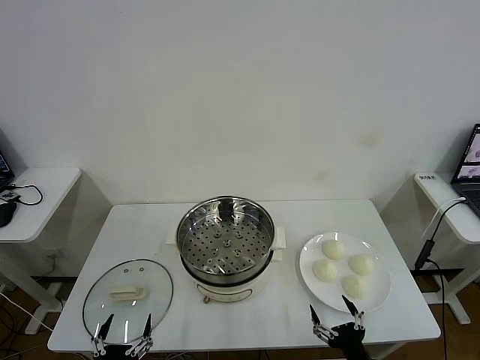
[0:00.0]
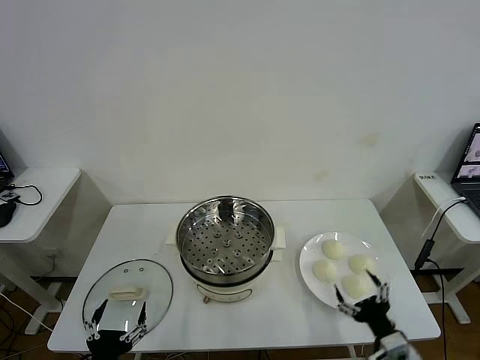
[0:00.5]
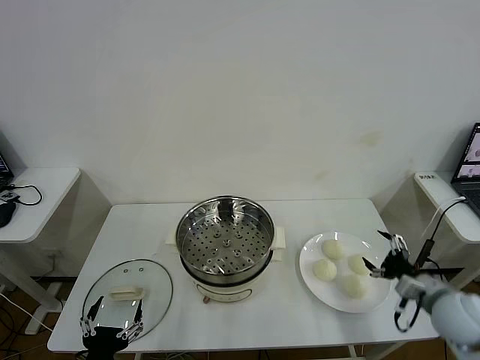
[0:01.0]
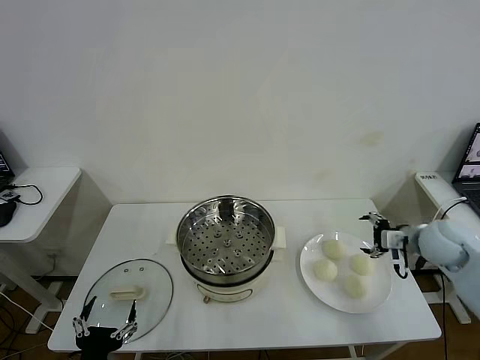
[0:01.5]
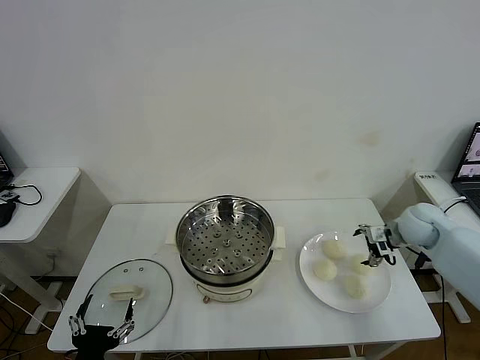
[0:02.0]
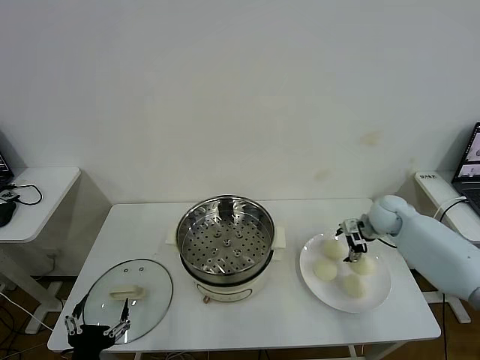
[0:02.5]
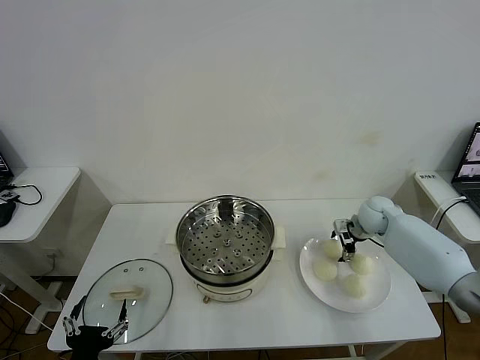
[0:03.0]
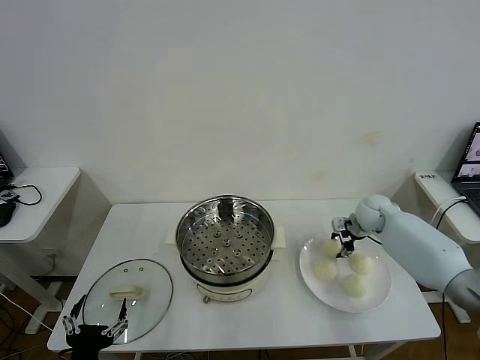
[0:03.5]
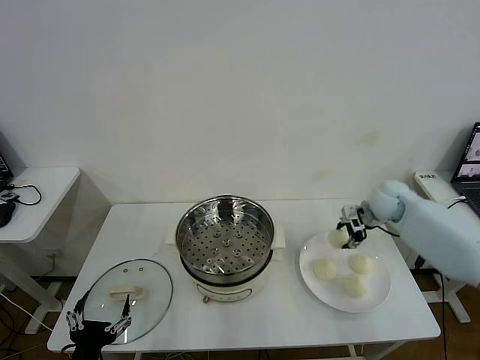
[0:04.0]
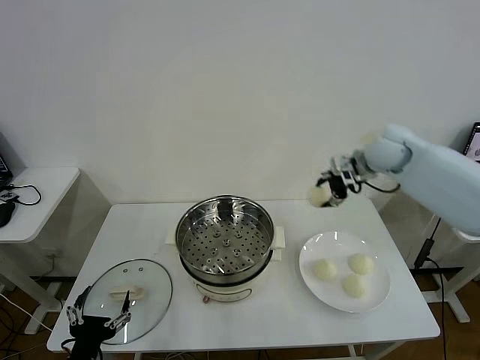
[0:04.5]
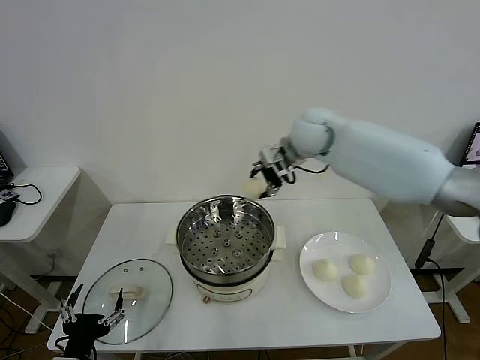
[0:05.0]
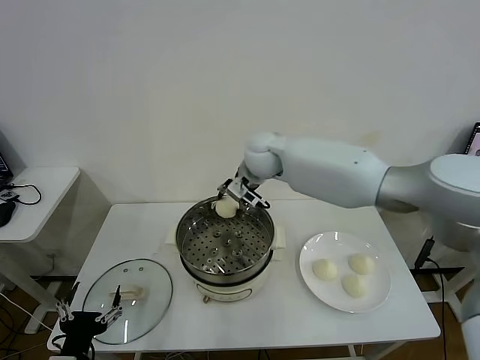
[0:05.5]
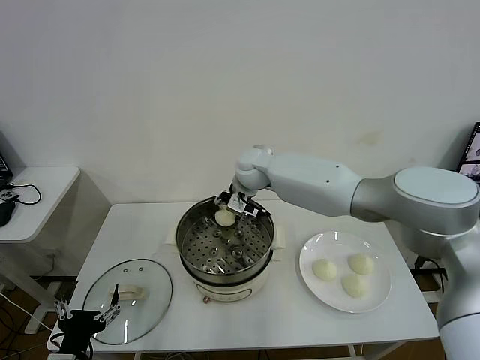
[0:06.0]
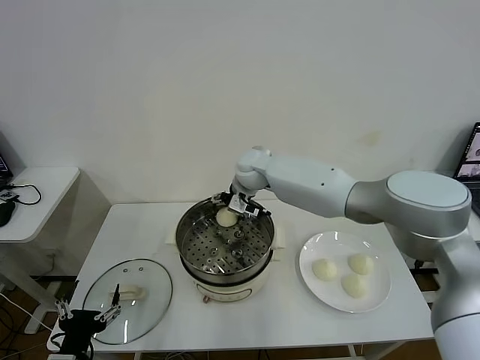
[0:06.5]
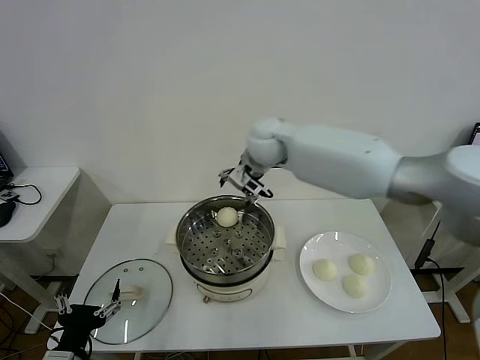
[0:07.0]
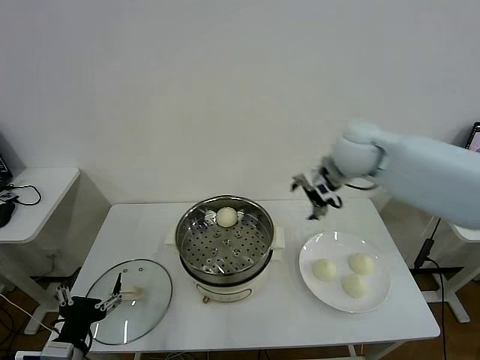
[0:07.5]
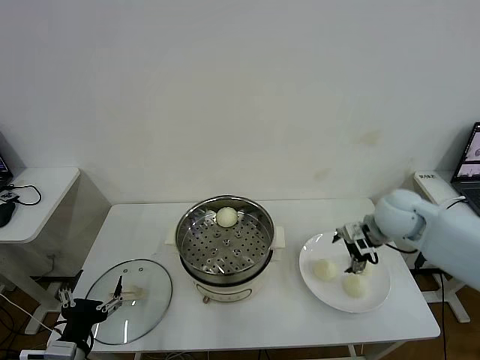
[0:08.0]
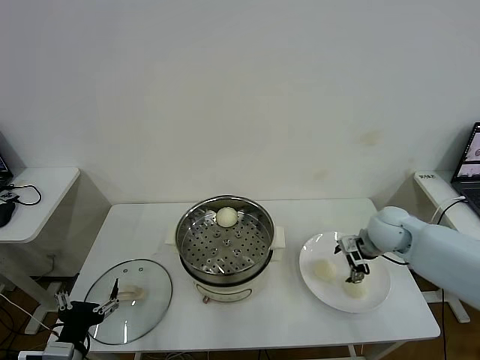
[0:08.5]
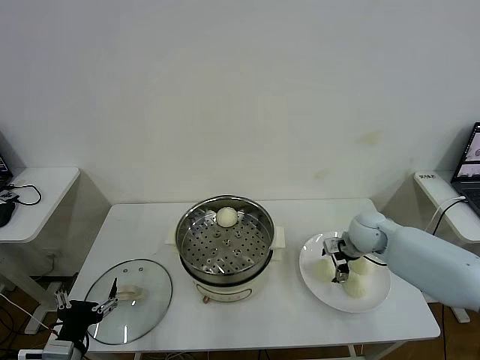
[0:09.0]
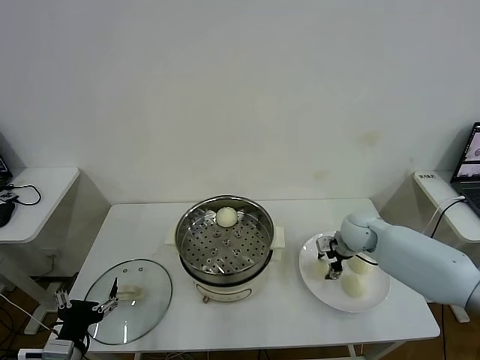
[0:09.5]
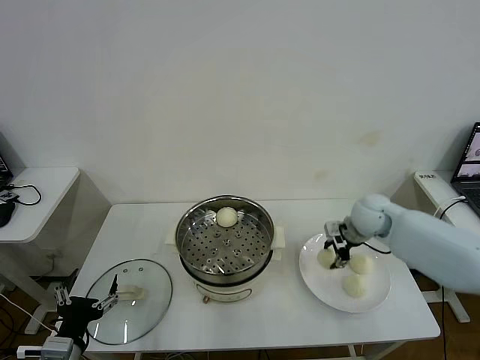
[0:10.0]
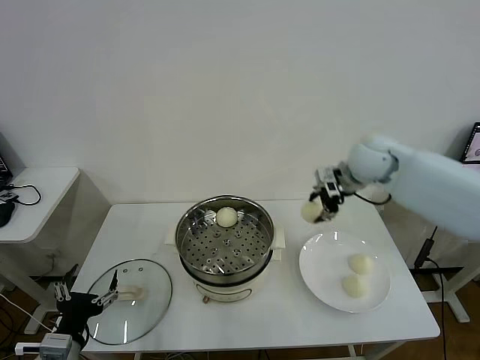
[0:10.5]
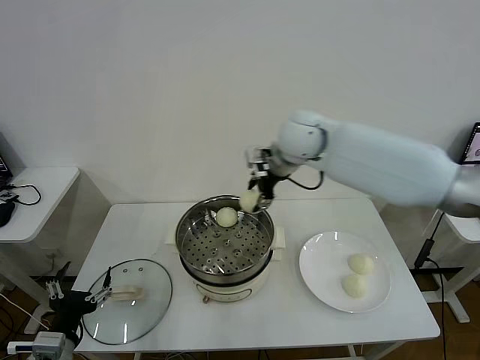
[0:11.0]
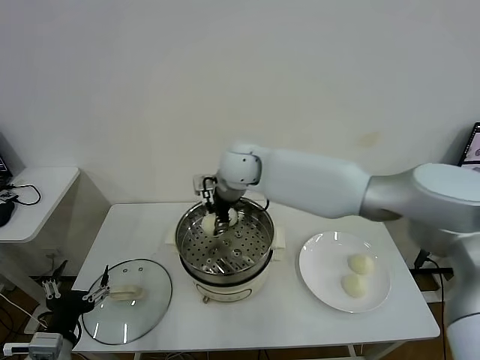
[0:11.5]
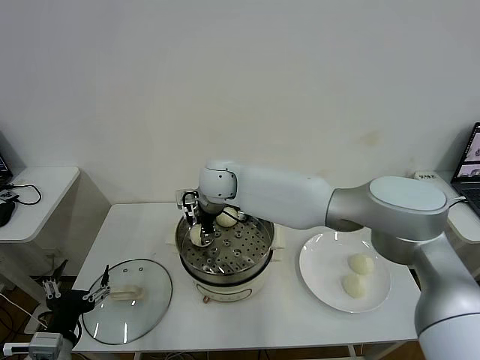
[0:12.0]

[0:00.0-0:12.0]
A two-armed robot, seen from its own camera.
Task of the whole recording: take steamed baozi put them in steamer then cover it.
Step, 0.0 to 3.0 s: Grasp the baozi in the plate with right gripper.
Step, 3.5 to 6.5 s: Place the baozi on the steamer with right gripper.
Step, 7.0 to 9.5 s: Grasp the baozi in the plate with right gripper.
2.0 to 4.0 s: The right gripper moves forward, some 5 cm, reaches roughly 5 cm downward, then returns, and closes up.
4.0 to 6.0 s: The right gripper moves to the left, roughly 35 cm.
6.0 to 8.0 s: The right gripper moves to the right and backward, approximately 35 cm, and opens its fingers.
8.0 to 10.0 s: The right gripper closes.
10.0 to 12.0 s: The right gripper shifts about 35 cm to the left.

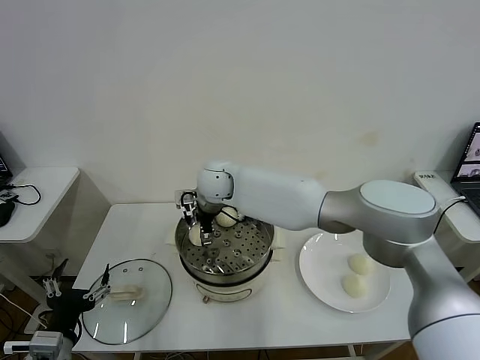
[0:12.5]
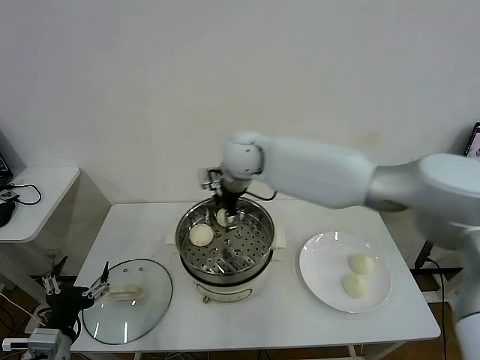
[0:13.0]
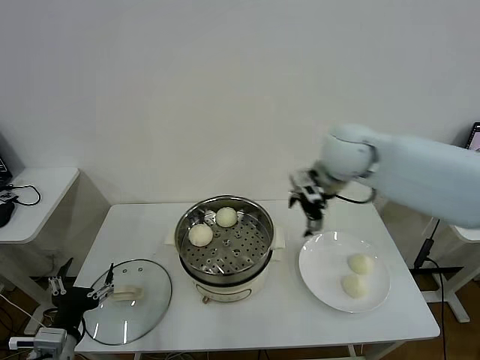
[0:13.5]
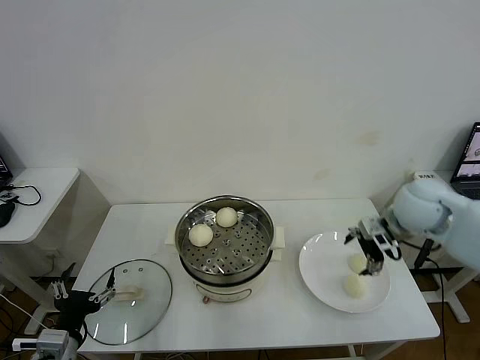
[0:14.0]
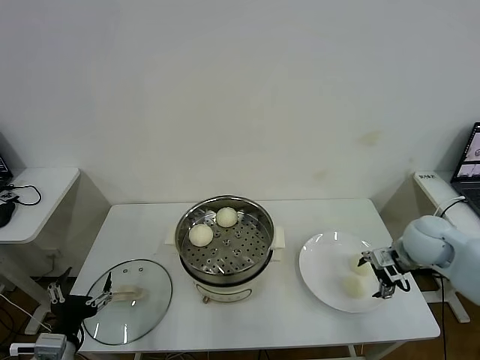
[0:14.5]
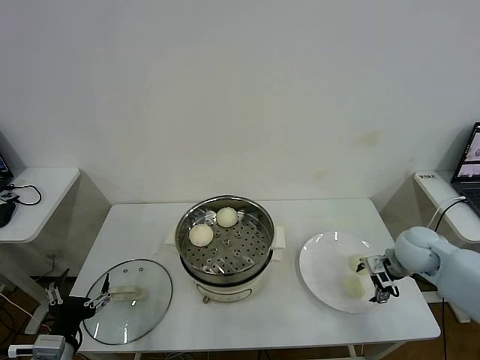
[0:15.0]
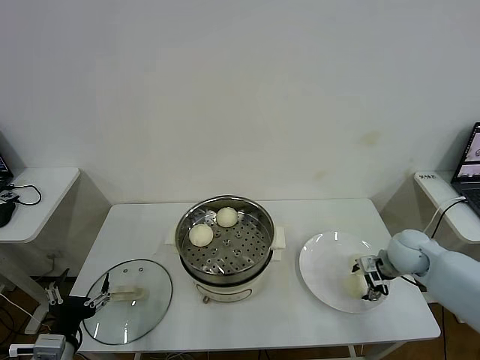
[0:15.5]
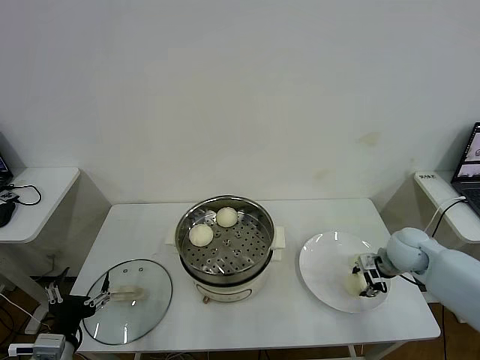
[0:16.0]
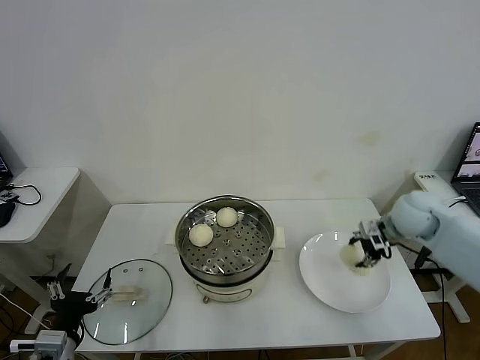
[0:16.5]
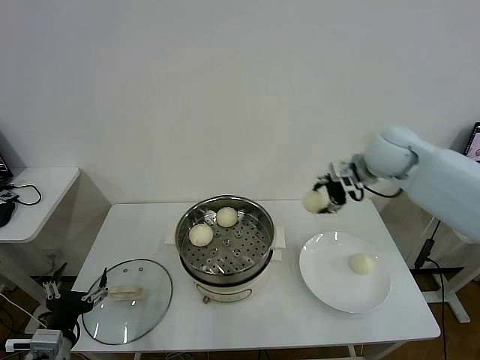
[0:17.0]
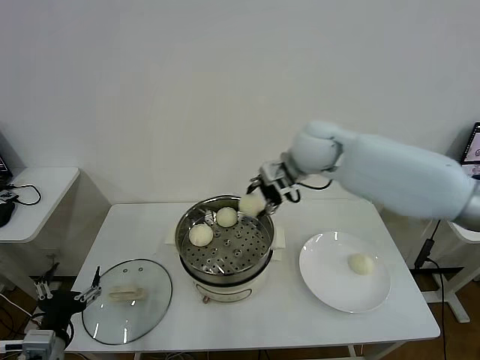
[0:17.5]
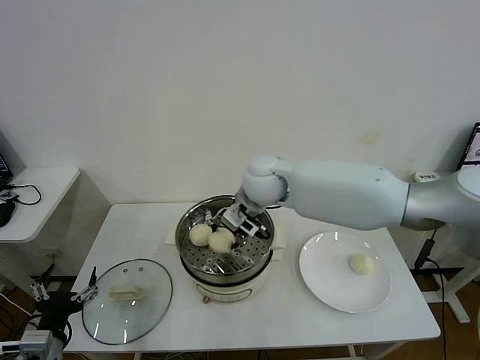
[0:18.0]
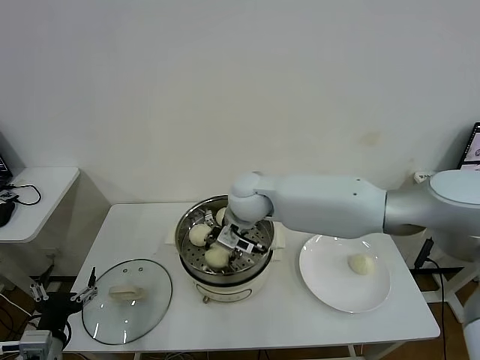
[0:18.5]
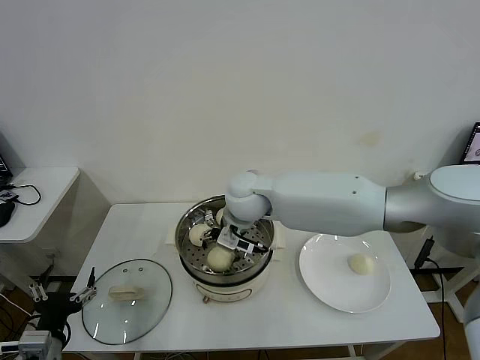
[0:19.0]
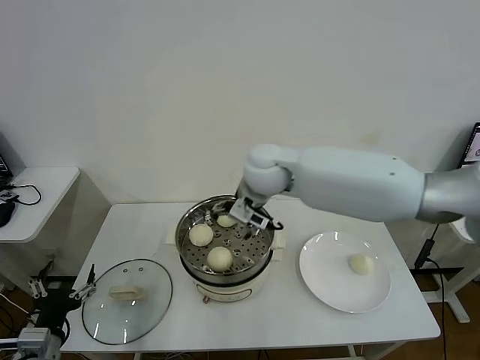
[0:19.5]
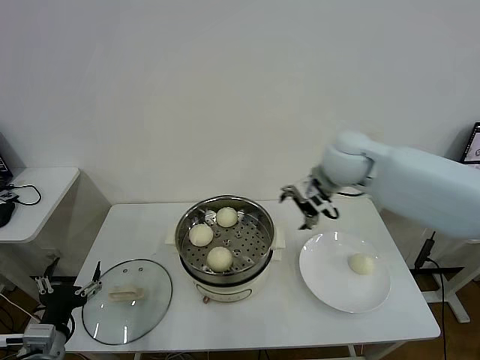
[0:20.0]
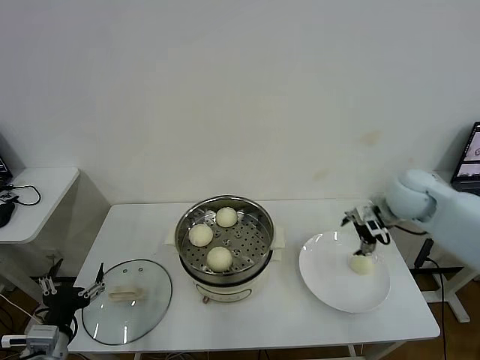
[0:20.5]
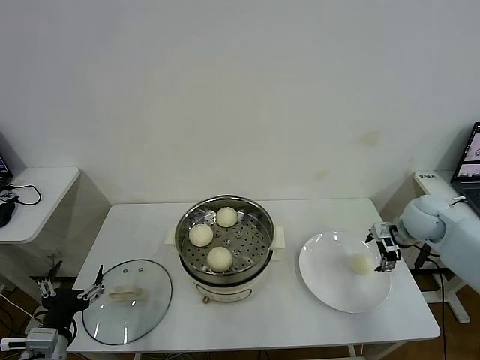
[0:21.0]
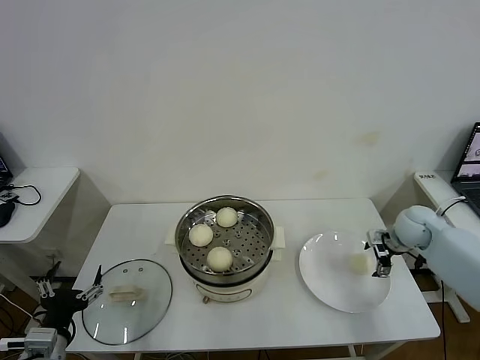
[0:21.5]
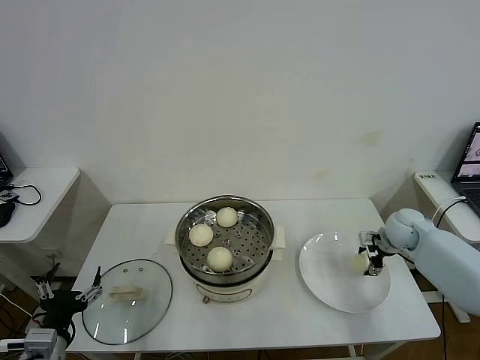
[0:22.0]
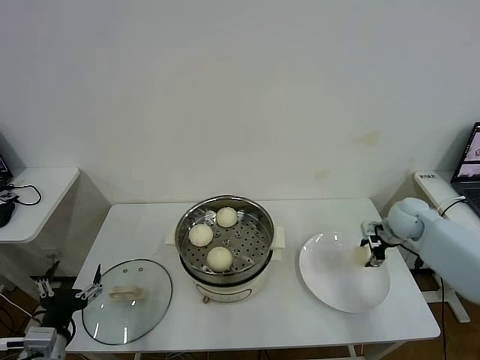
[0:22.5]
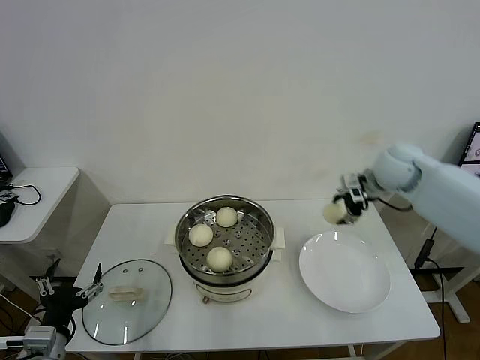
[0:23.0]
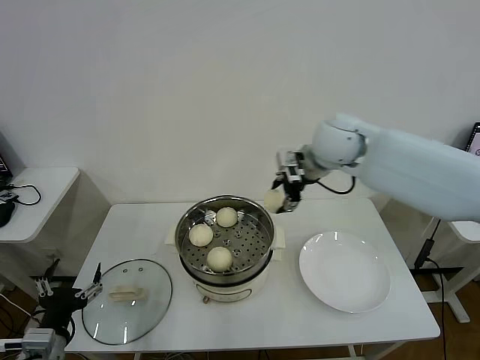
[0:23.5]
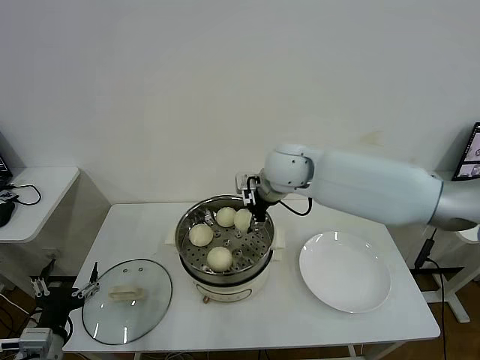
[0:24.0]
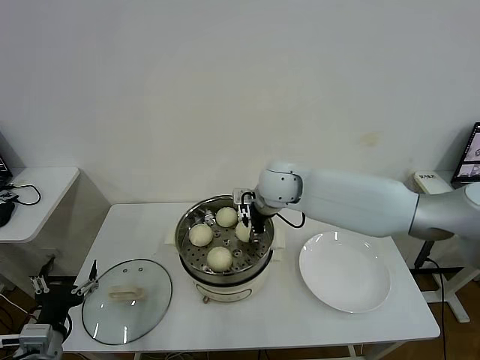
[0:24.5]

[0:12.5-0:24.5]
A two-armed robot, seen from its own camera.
Task of the whole recording: take steamed baozi put them in steamer then cover it.
Step, 13.0 to 15.5 s: Grasp the baozi in the plate with right gripper.
Step, 16.0 to 19.0 s: Place the baozi on the steamer with right gripper.
Step, 19.5 to 22.0 s: Grasp the baozi in the plate with right gripper.
12.5 to 14.5 s: The right gripper moves to the right, some 40 cm.
14.5 to 16.5 s: The right gripper goes some 5 cm forward, reaches approximately 5 cm downward, then returns, and closes.
16.5 to 18.5 s: The right gripper goes approximately 35 cm to the left.
18.5 to 20.5 s: The right gripper heads to the right, covering approximately 35 cm, and opens.
20.5 to 22.5 s: The right gripper moves downward and to the right, approximately 15 cm, and closes up.
22.5 to 24.5 s: The right gripper travels to the left by approximately 35 cm.

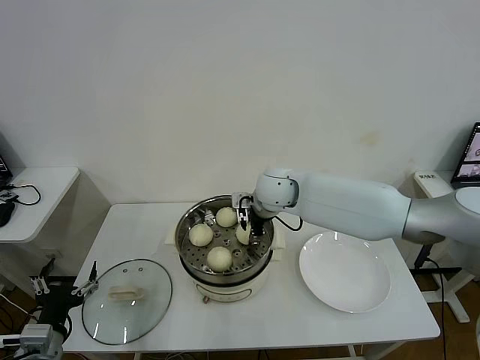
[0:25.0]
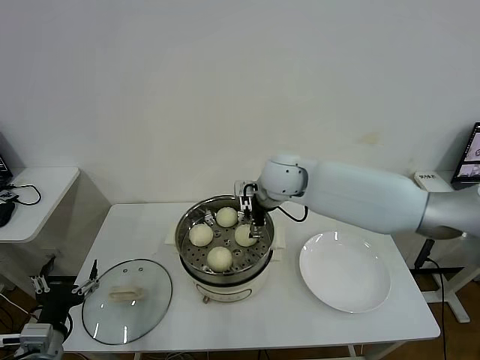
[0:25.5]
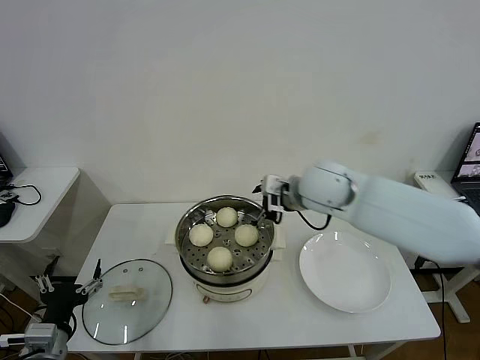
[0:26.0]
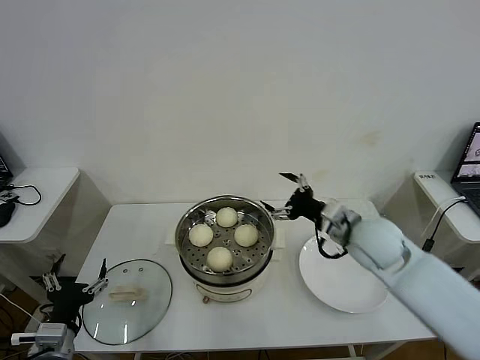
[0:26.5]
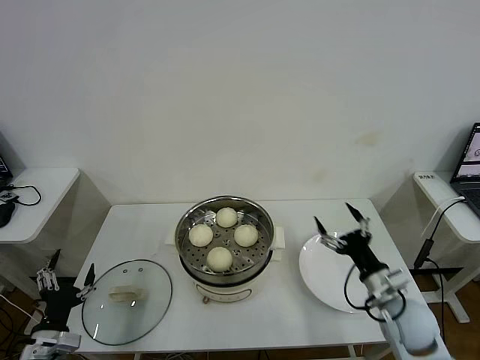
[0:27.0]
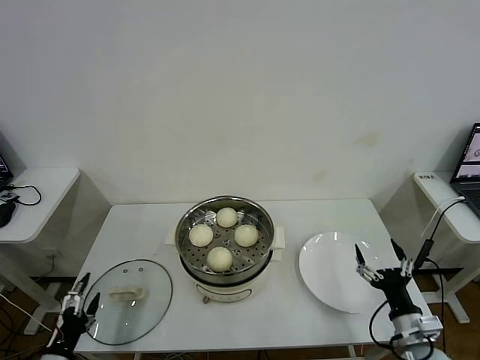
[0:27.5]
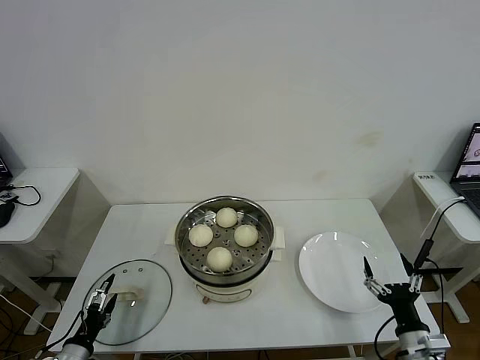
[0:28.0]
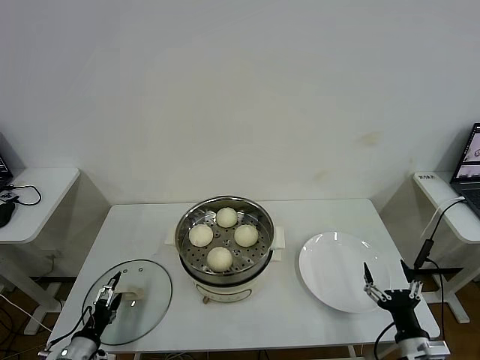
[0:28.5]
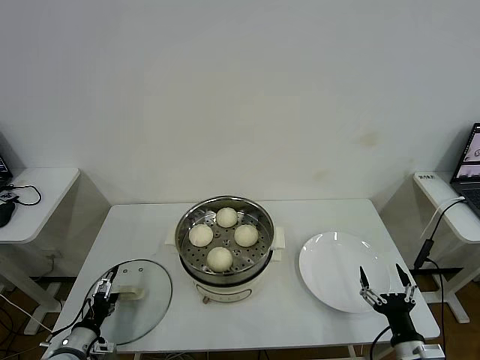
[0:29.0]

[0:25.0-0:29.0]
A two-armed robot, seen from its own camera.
Task of the whole recording: take steamed baozi put them in steamer then cover it.
25.0 to 27.0 s: The right gripper travels to the right, backward and downward by approximately 35 cm, and opens up.
27.0 to 29.0 s: The right gripper goes approximately 15 cm backward and downward. Meanwhile the left gripper travels downward by roughly 10 cm.
